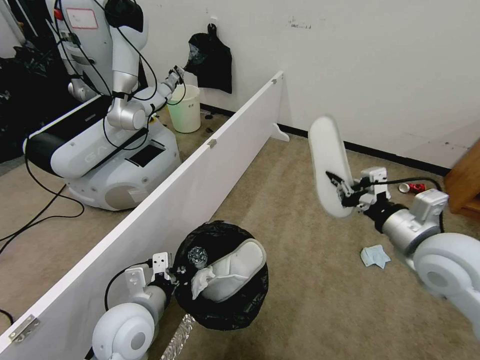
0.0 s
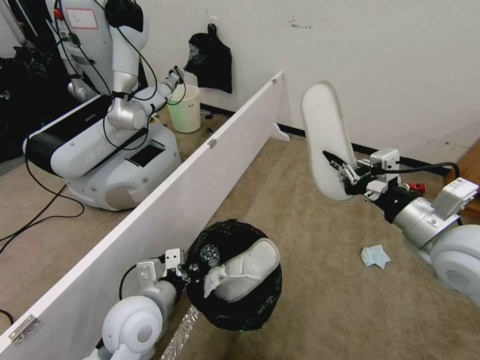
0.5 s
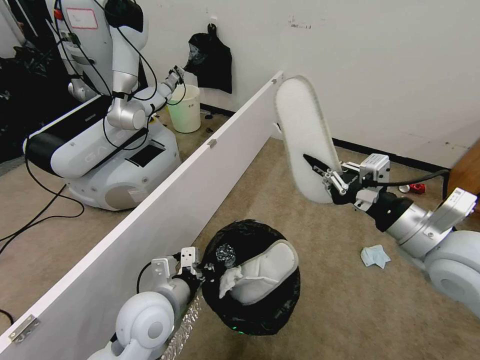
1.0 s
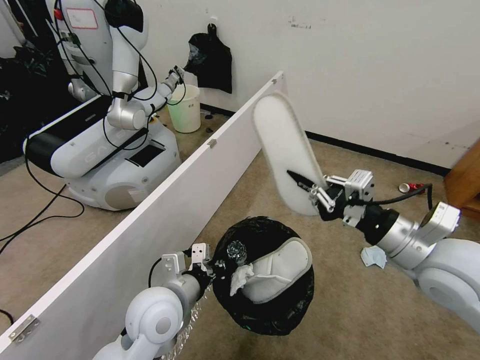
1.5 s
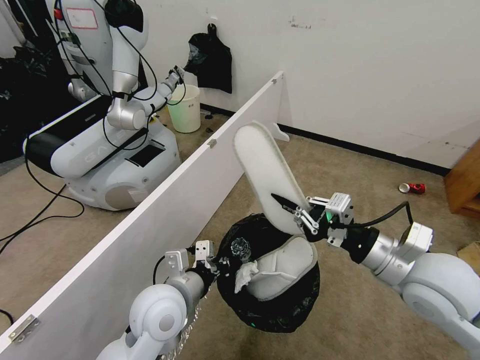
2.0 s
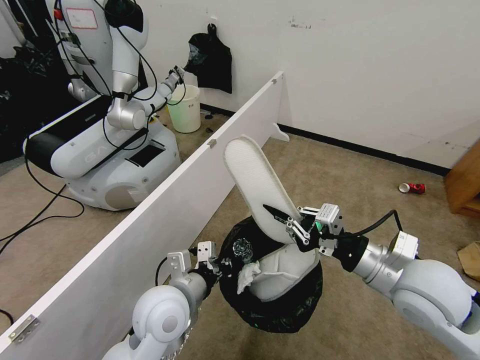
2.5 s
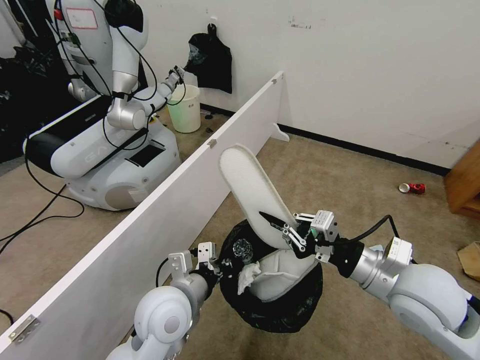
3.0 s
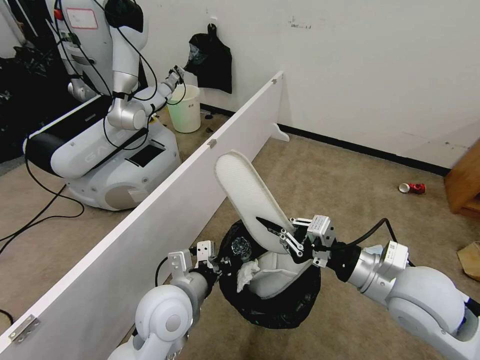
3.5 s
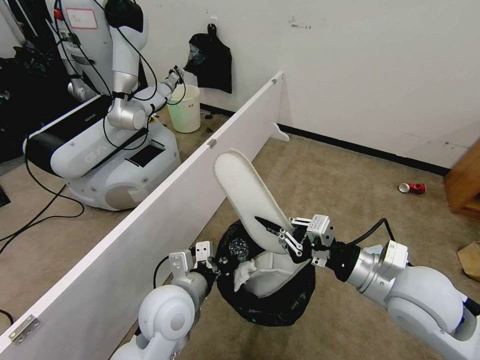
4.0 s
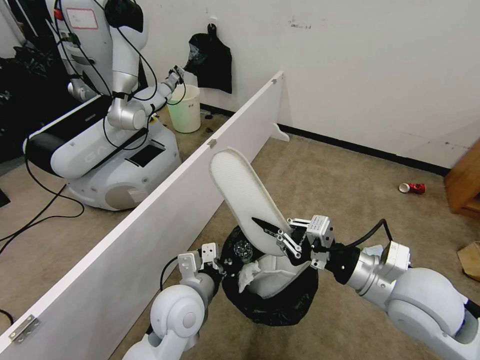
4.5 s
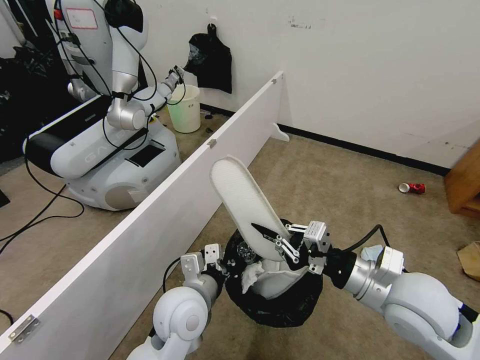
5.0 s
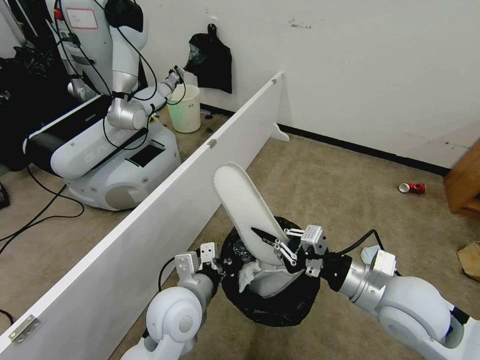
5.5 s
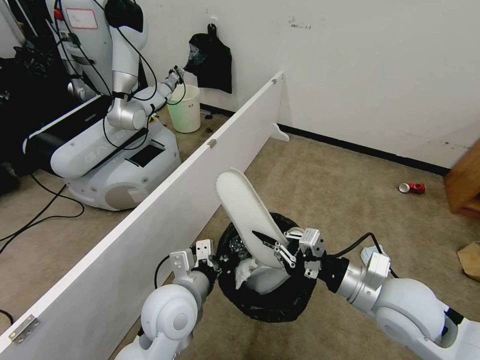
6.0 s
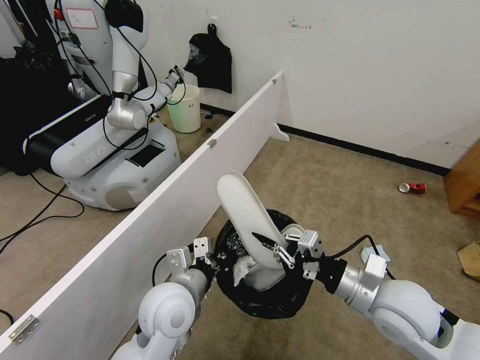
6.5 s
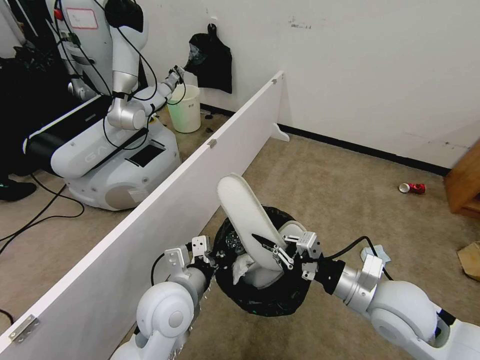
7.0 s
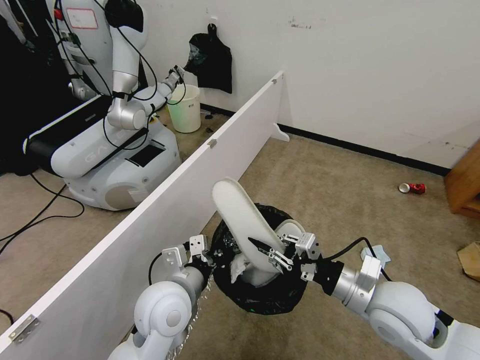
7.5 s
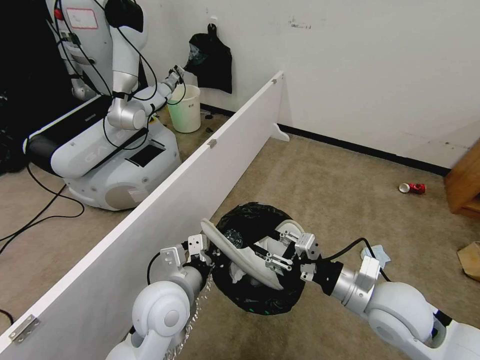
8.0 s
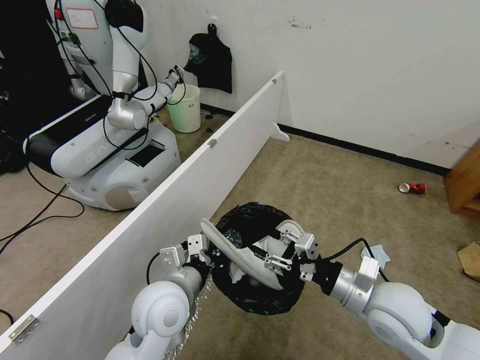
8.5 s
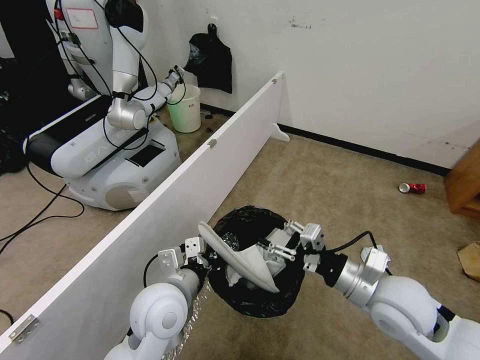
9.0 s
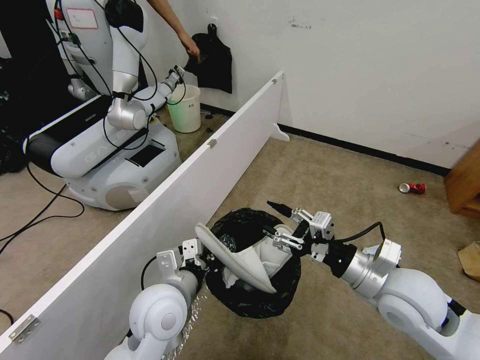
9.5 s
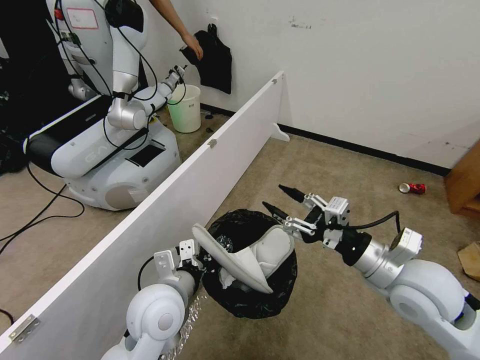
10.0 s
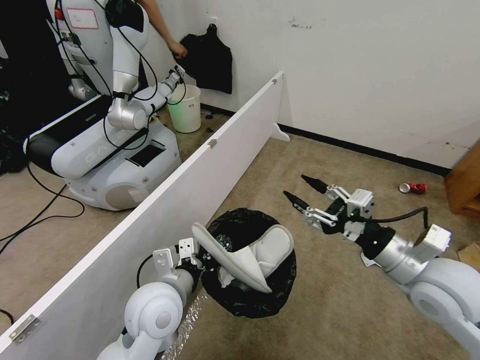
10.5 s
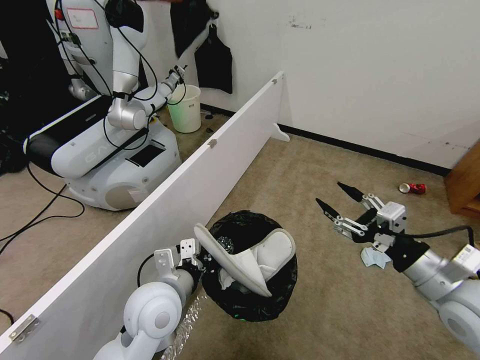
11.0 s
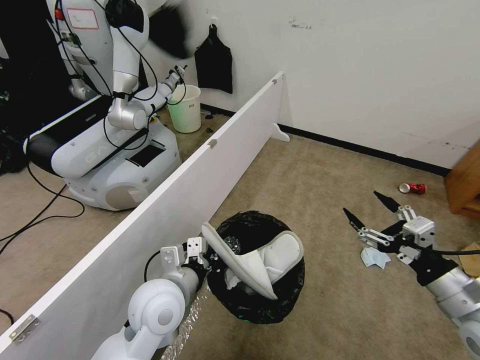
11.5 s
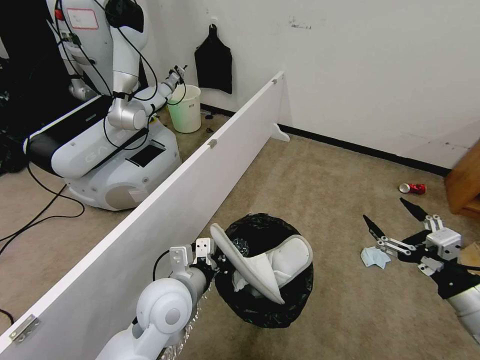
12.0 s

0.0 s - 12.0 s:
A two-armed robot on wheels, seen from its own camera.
Task of the whole recording: Pick up the trash bin, then pick up the garbage from the floor and place it into the trash bin.
0.0 s - 2.0 s: The right gripper goes approximately 10 cm upward. Meanwhile the left gripper is displaced to the right by roughly 5 cm.
2.0 s - 4.0 s: The grippers stay close to where they were, moving slightly.
4.0 s - 6.0 s: The grippers make only small movements.
6.0 s - 8.0 s: The right gripper opens.
8.0 s - 10.0 s: The right gripper shifts some 5 cm upward.
10.0 s - 12.0 s: The right gripper travels to the right and backward by roughly 15 cm.

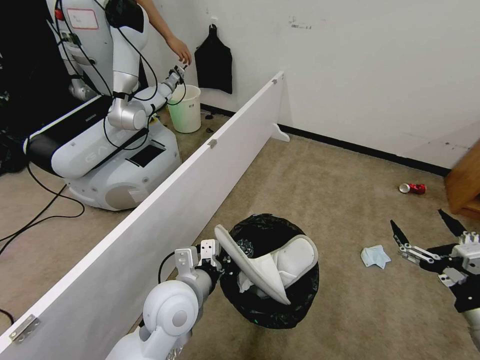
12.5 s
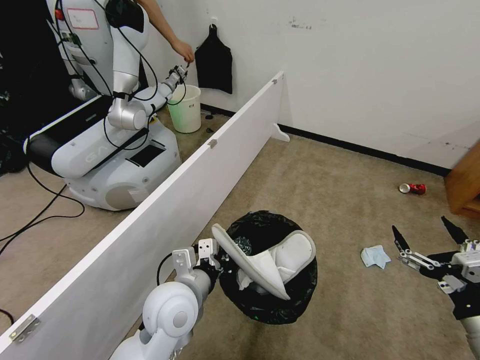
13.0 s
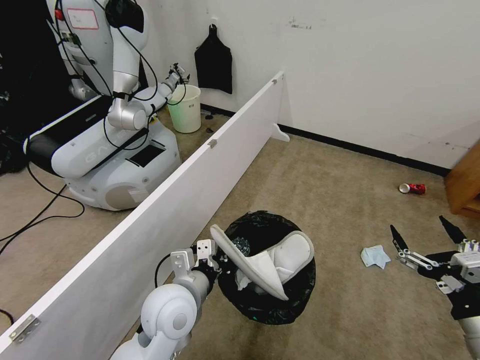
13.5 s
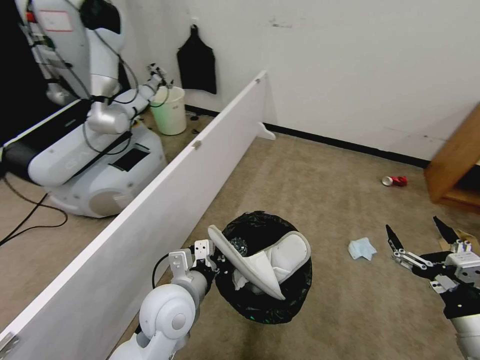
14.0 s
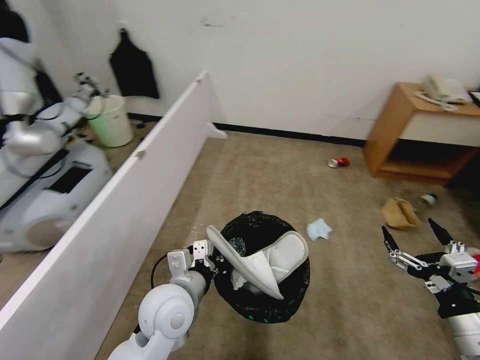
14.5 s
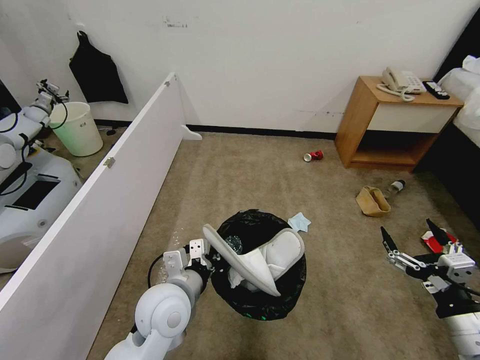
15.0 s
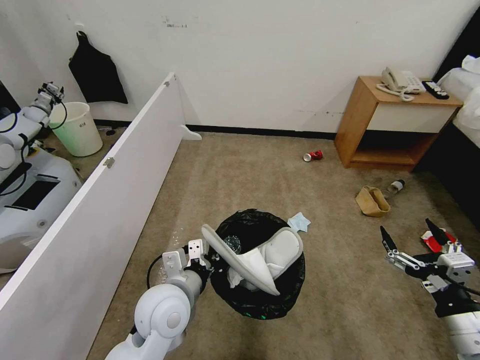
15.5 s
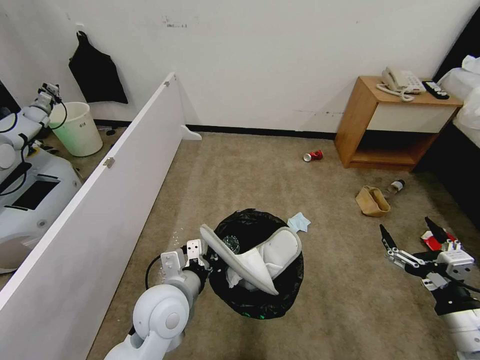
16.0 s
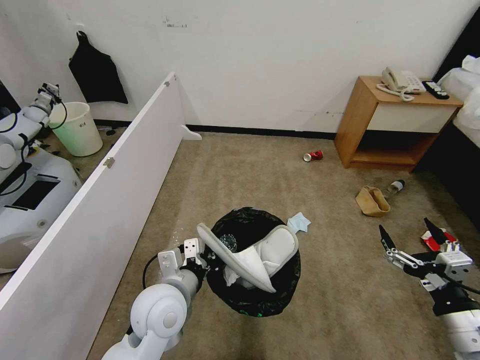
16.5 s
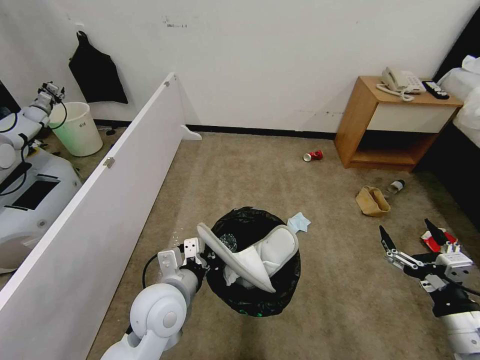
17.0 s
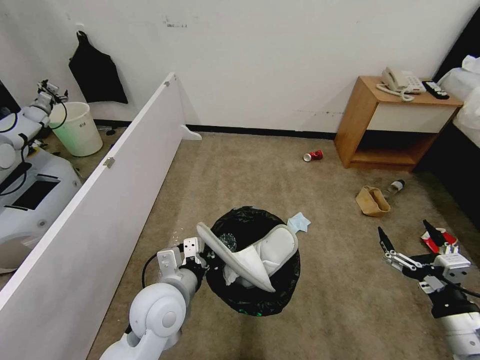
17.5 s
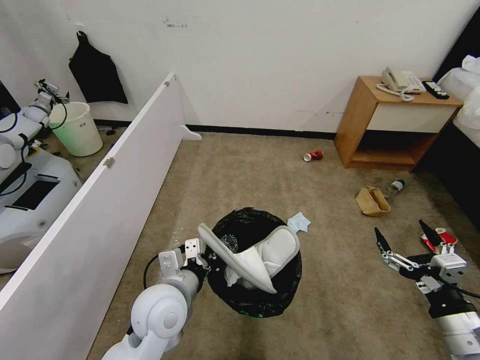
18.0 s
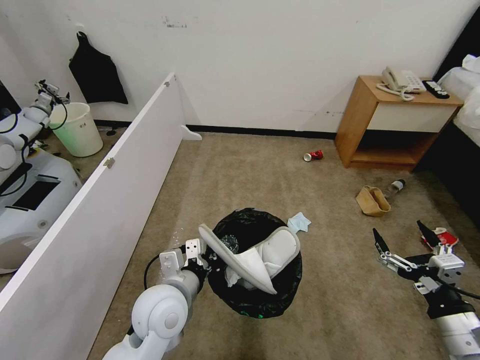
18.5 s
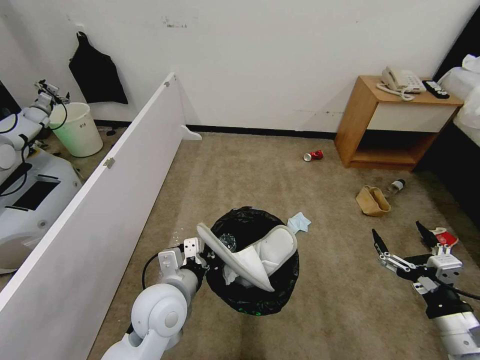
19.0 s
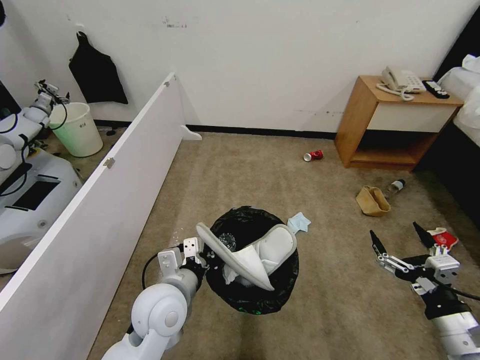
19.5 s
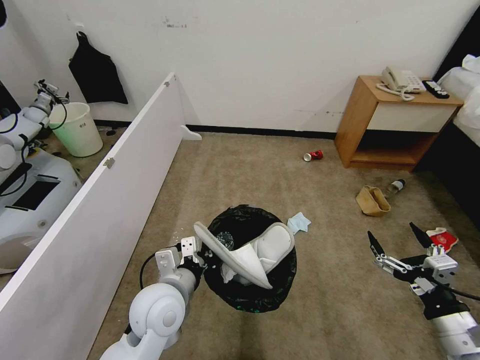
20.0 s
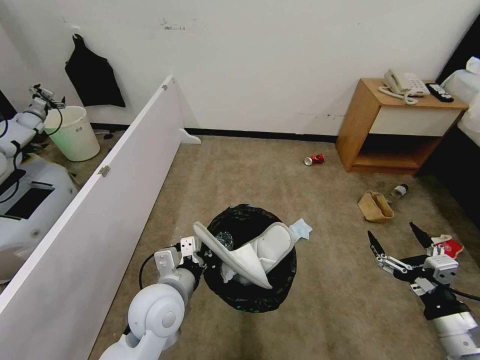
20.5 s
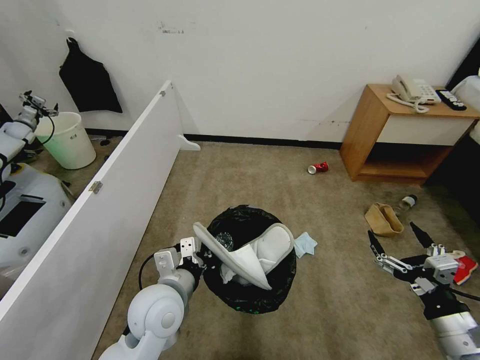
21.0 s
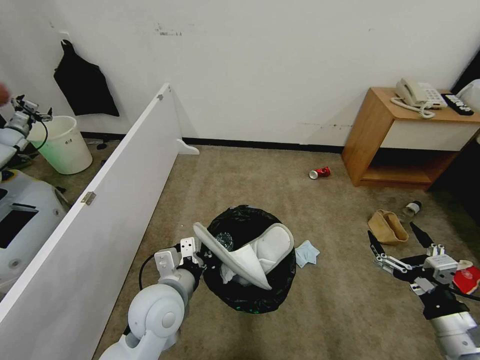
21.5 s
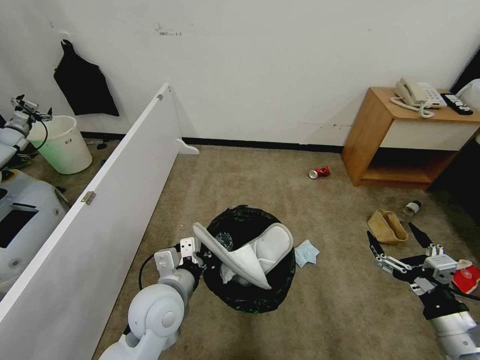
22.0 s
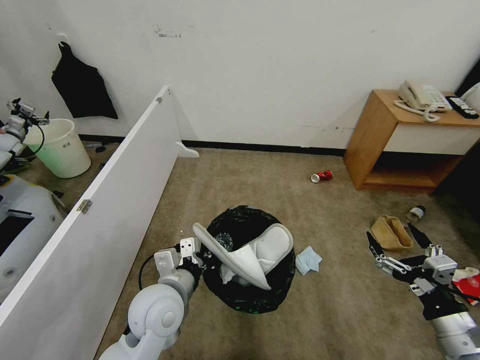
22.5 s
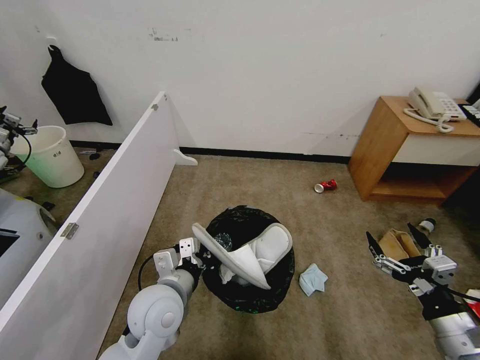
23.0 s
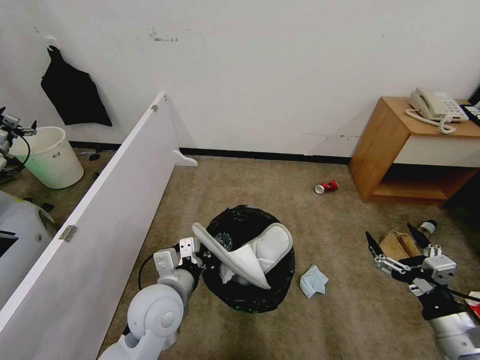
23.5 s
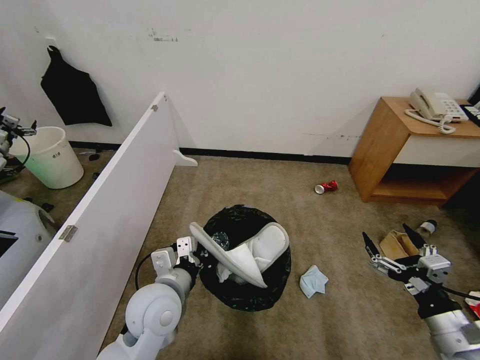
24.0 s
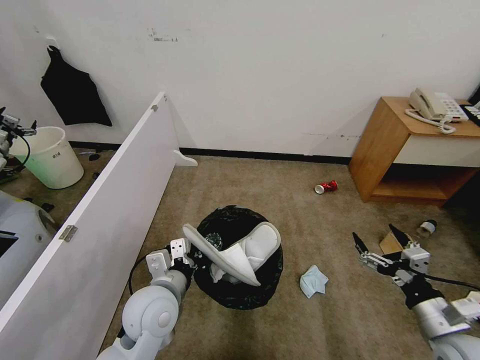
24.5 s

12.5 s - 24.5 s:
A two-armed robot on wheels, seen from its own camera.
Task of the whole recording: Pick up the trash bin, then pick up the garbage from the floor and place it into the trash bin.
16.5 s - 20.5 s: Both grippers stay about where they are.

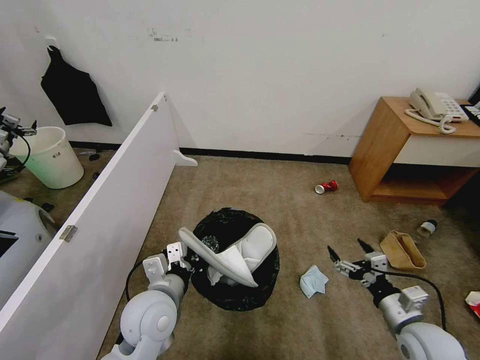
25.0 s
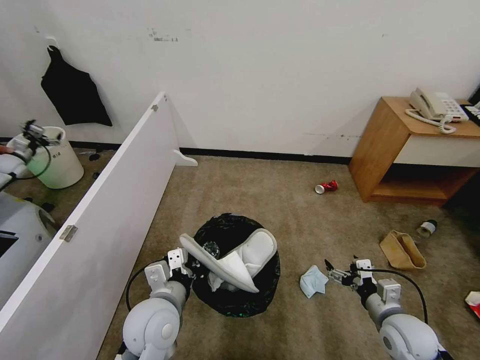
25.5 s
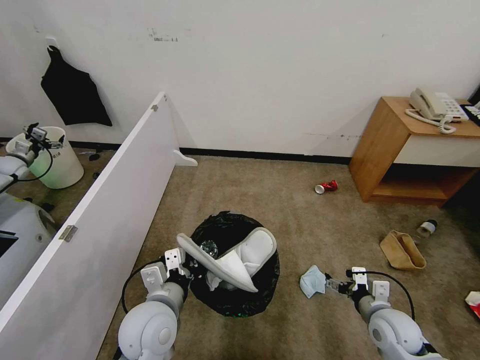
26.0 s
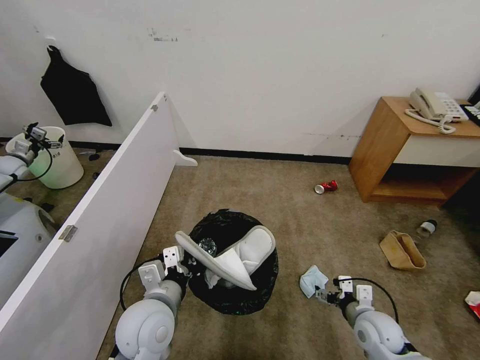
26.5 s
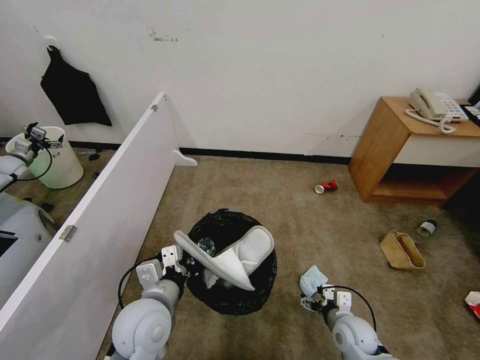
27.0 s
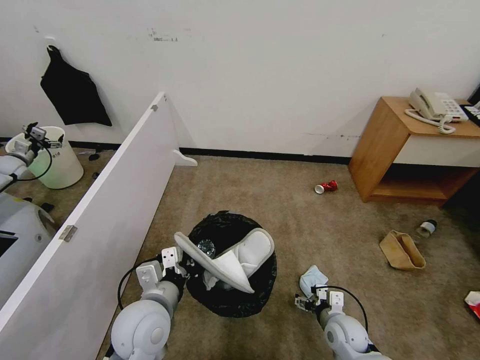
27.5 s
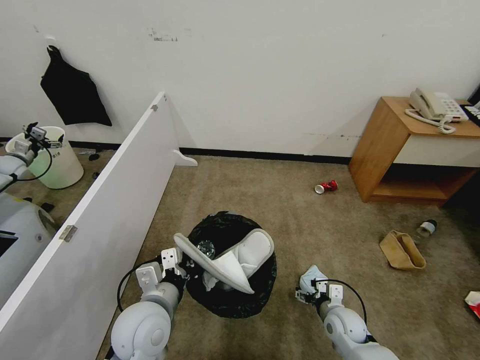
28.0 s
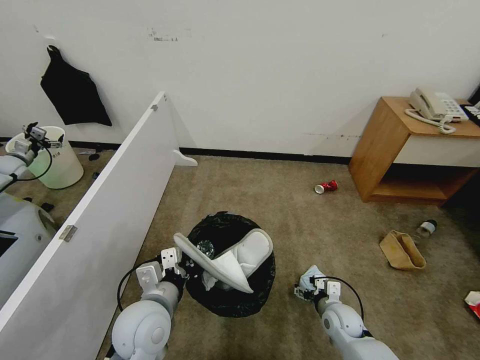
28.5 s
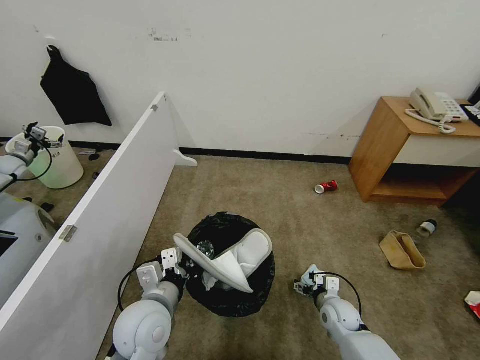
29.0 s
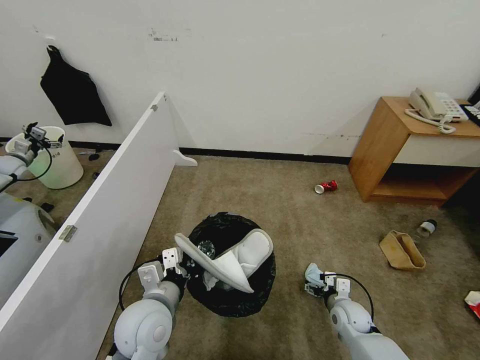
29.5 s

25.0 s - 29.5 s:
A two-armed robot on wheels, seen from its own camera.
Task of the whole recording: Pick up the trash bin, then pick up the garbage from the floor and place it into the trash bin.
25.0 s - 27.0 s: The right gripper travels downward and to the left by about 15 cm.
27.0 s - 29.5 s: The right gripper shifts by roughly 5 cm.
